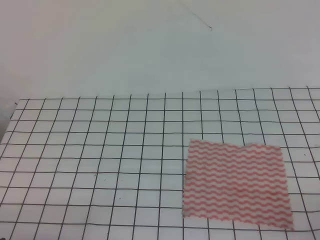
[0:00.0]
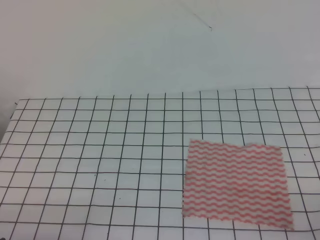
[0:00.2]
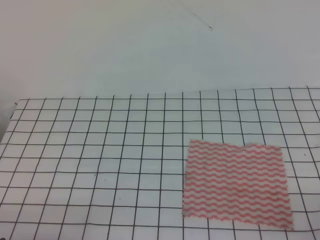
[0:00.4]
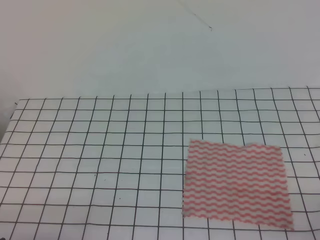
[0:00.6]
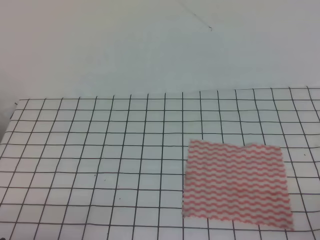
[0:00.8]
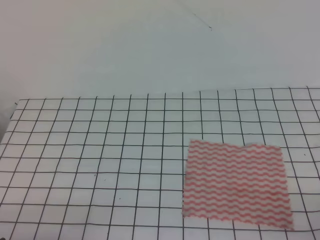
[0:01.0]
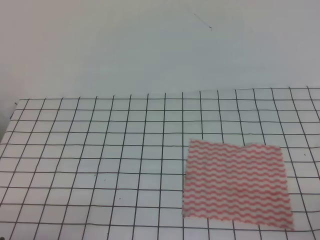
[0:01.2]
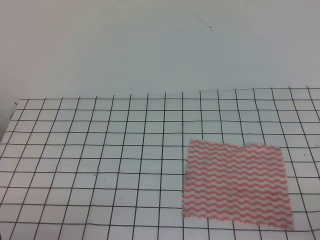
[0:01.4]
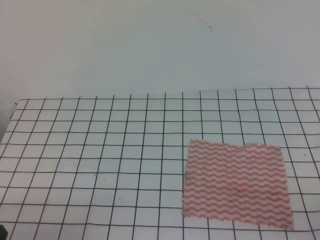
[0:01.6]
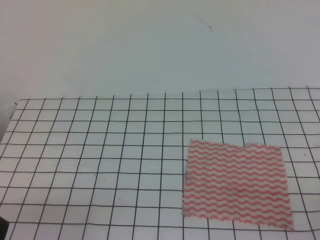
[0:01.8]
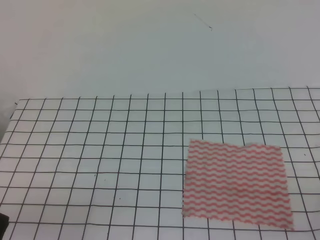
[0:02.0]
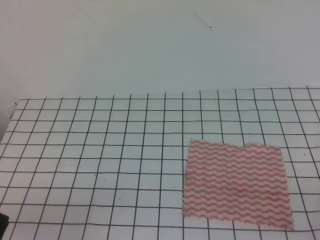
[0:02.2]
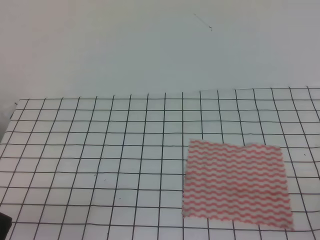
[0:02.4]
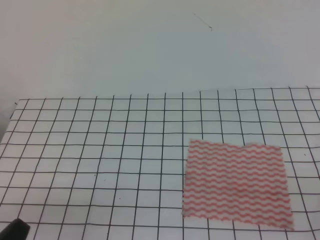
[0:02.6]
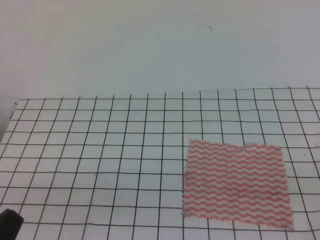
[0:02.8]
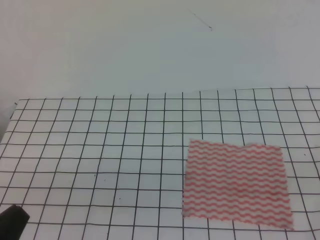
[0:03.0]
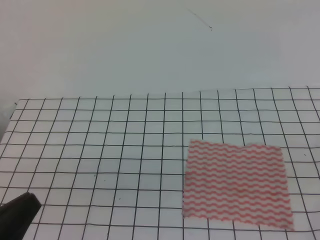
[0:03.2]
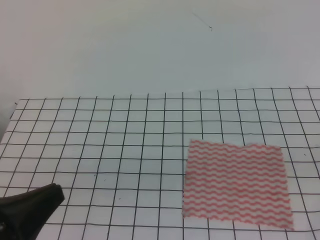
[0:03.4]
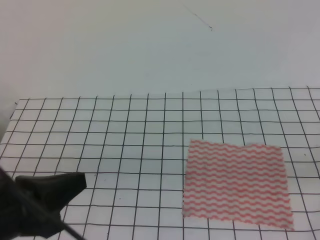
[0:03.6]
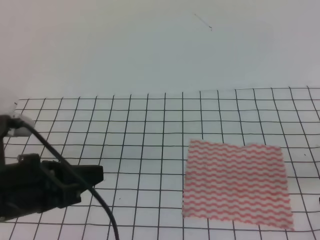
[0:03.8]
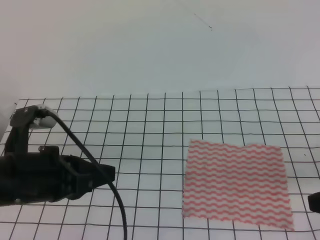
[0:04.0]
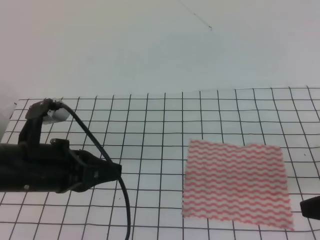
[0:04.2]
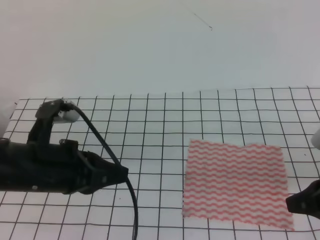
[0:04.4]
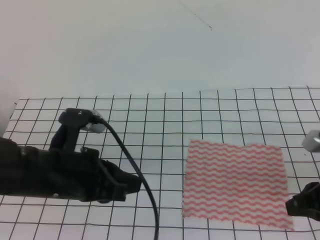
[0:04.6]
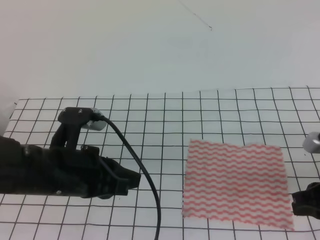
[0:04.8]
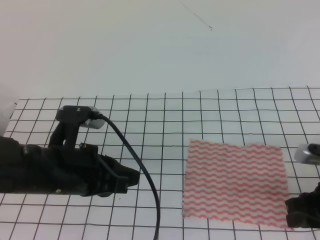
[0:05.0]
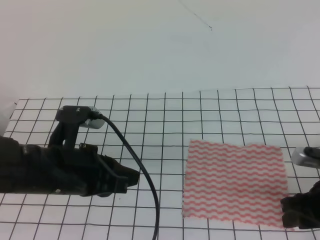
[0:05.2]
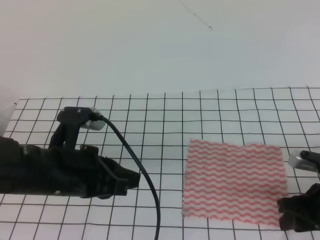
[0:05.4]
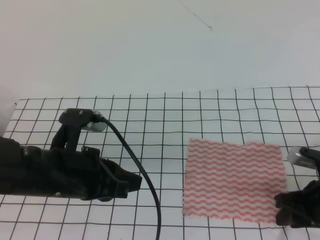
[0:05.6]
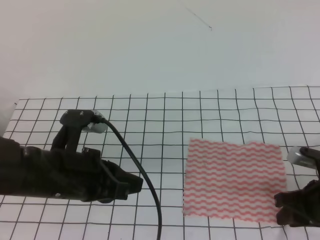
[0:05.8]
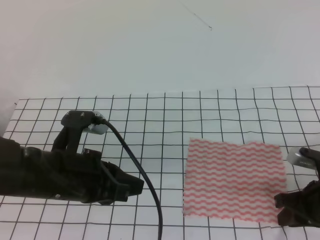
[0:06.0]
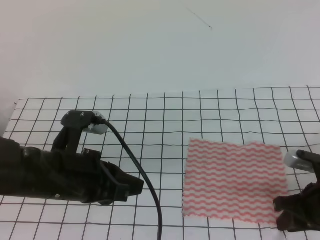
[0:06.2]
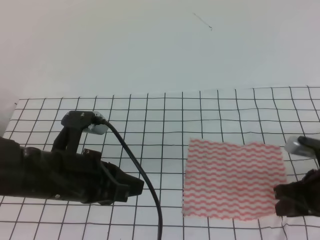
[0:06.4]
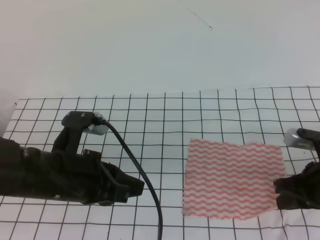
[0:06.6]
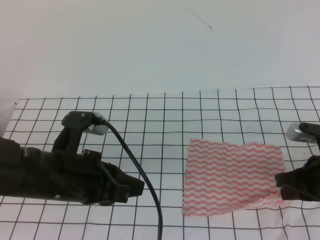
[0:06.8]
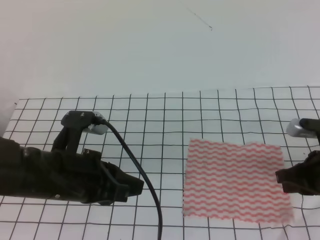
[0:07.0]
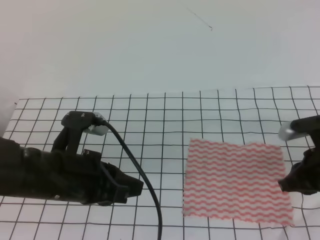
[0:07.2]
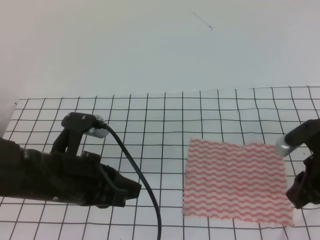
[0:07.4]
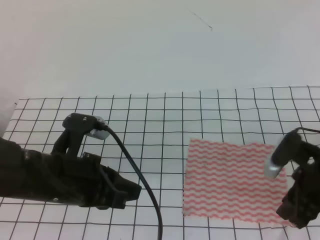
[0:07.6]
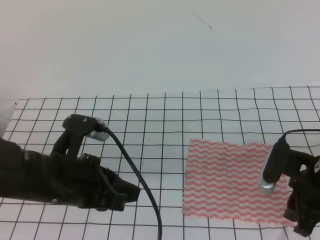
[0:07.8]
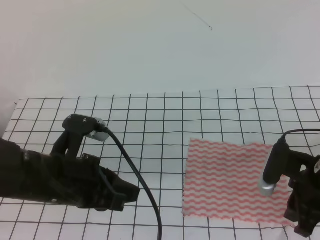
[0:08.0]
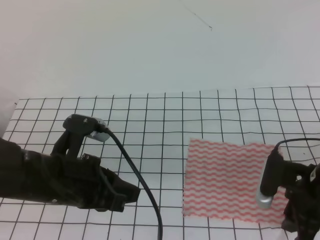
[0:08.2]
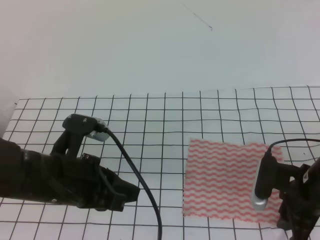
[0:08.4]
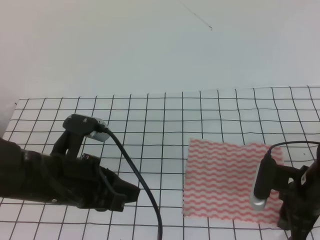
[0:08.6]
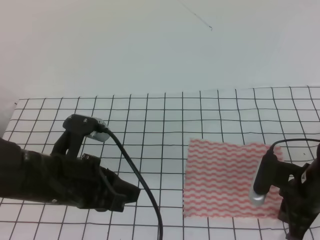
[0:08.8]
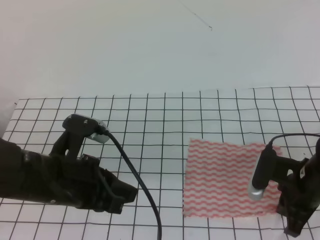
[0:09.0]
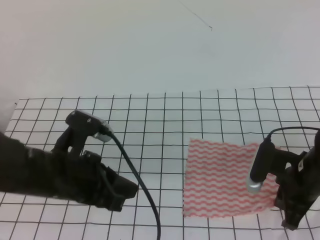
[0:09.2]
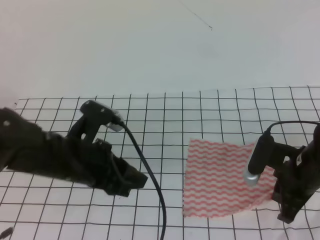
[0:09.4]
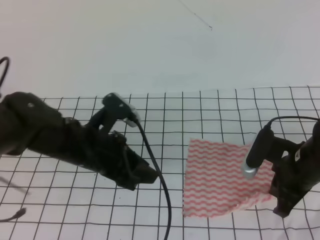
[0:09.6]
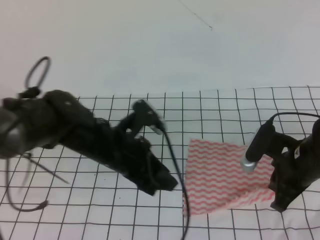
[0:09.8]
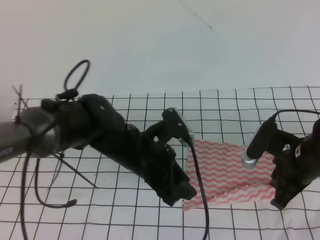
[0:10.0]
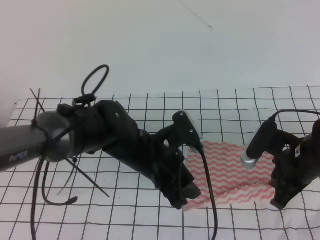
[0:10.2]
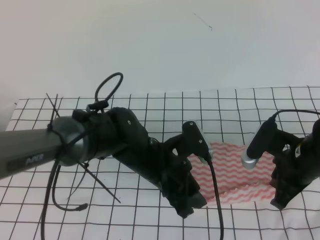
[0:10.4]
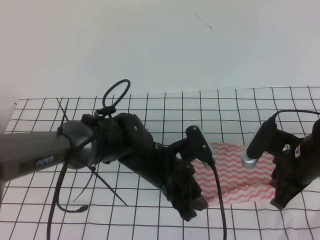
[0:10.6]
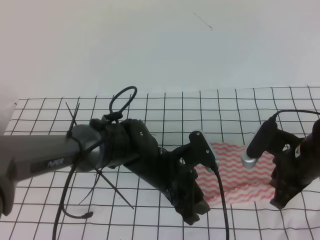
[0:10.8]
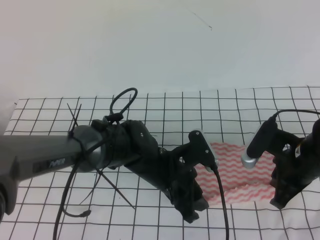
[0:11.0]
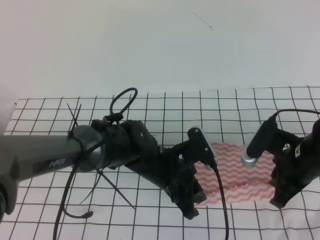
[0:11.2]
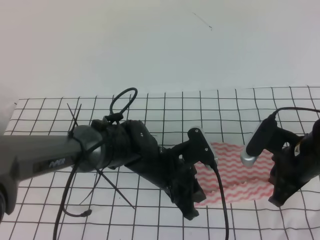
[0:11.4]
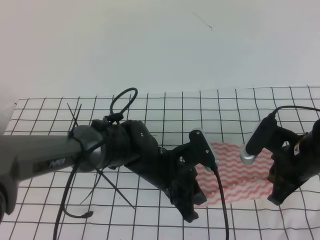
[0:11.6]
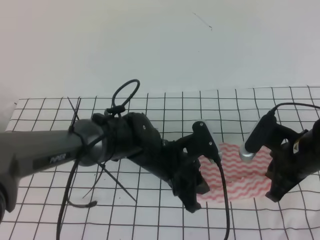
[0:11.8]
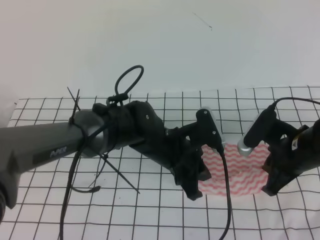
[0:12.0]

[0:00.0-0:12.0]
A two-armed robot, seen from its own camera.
0:01.6 to 0:03.0: The left gripper moves upward, approximately 5 cm.
0:03.0 to 0:04.4: The grippers both shift forward by about 15 cm.
0:04.4 to 0:06.0: The right gripper is displaced downward by approximately 10 cm.
0:06.0 to 0:07.6: The right gripper changes place by approximately 5 cm, and closes, then opens again.
0:07.6 to 0:09.0: The right gripper closes up.
0:09.0 to 0:10.4: The left gripper moves to the right, forward and downward, approximately 15 cm, and opens.
0:10.4 to 0:12.0: The left gripper closes up.

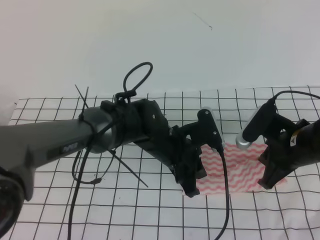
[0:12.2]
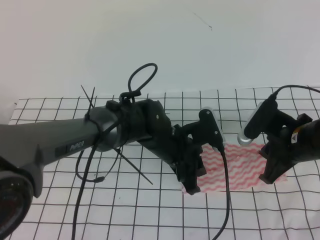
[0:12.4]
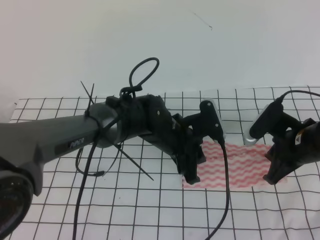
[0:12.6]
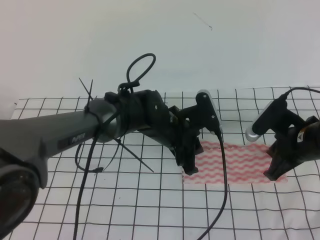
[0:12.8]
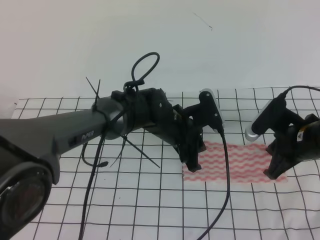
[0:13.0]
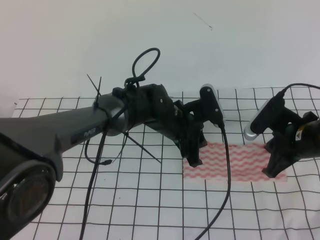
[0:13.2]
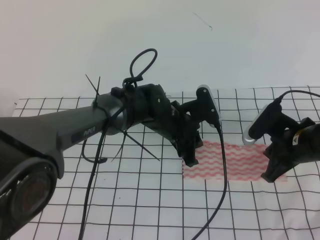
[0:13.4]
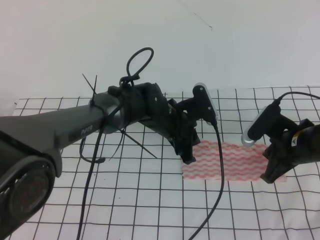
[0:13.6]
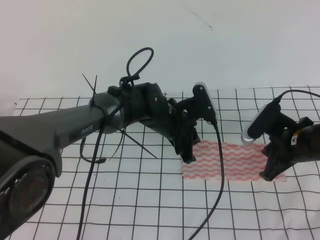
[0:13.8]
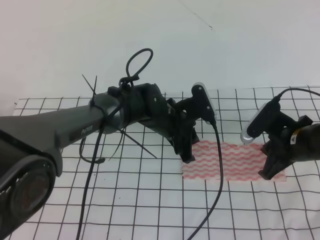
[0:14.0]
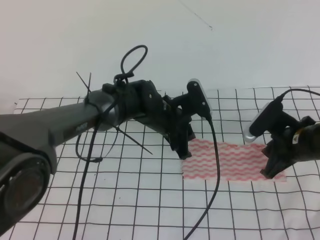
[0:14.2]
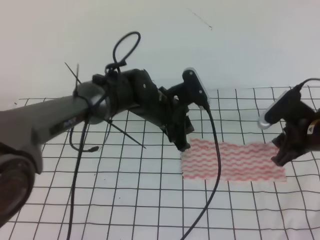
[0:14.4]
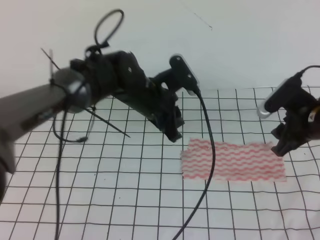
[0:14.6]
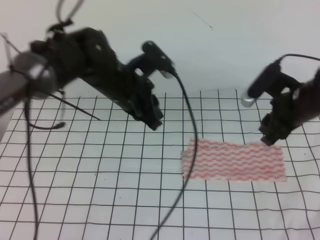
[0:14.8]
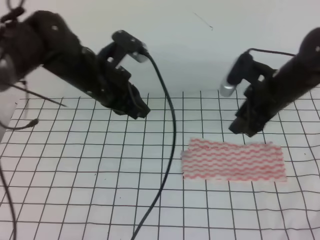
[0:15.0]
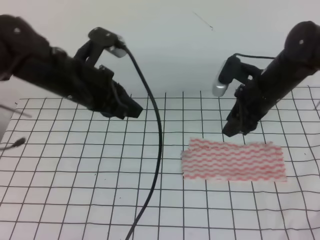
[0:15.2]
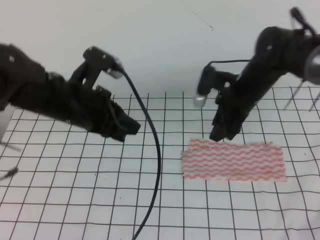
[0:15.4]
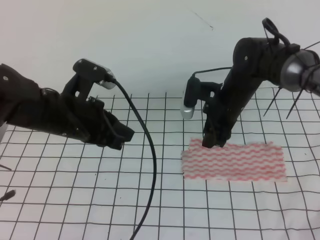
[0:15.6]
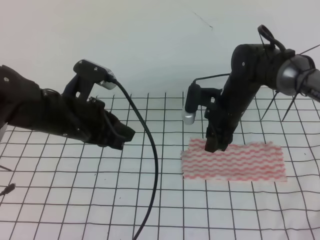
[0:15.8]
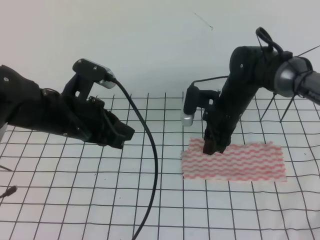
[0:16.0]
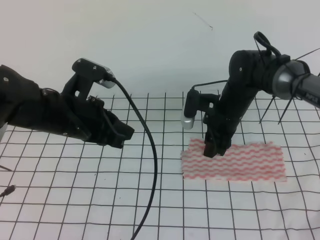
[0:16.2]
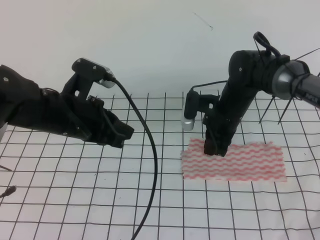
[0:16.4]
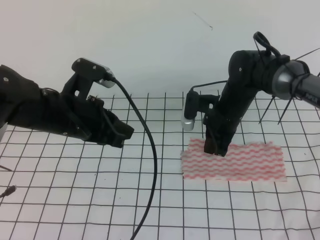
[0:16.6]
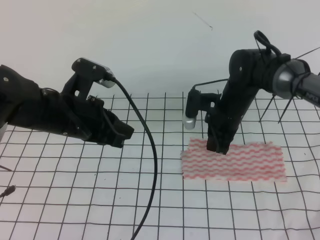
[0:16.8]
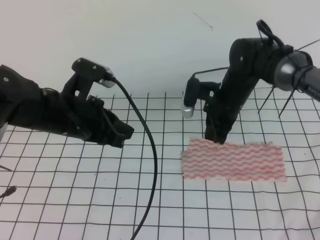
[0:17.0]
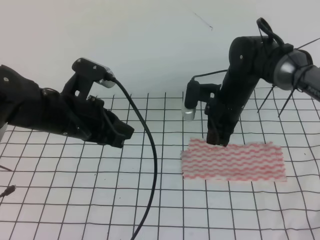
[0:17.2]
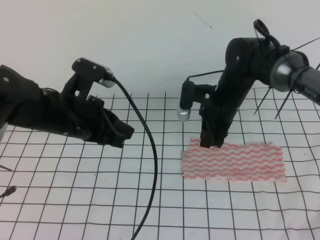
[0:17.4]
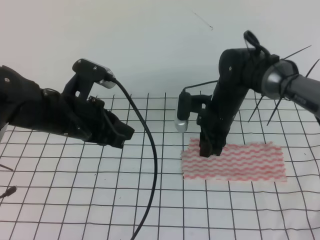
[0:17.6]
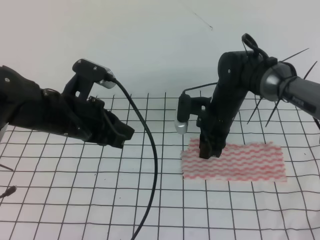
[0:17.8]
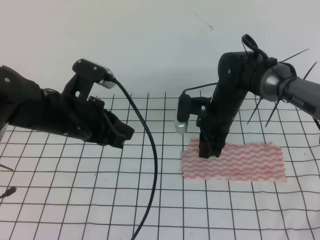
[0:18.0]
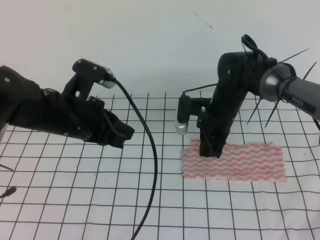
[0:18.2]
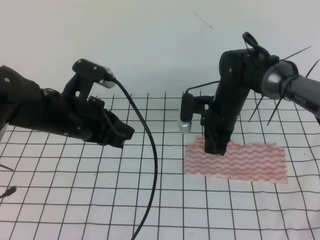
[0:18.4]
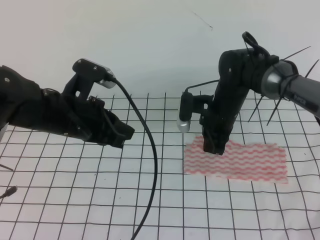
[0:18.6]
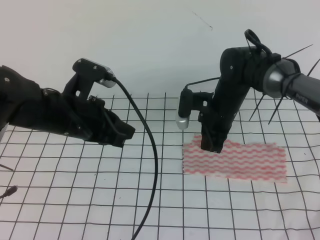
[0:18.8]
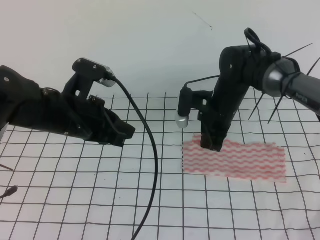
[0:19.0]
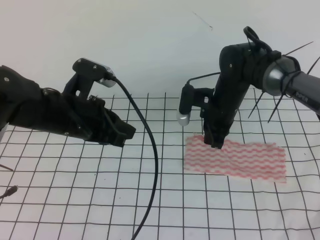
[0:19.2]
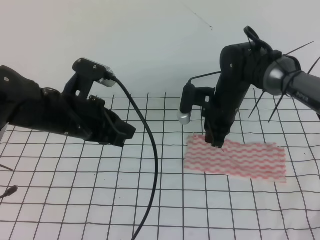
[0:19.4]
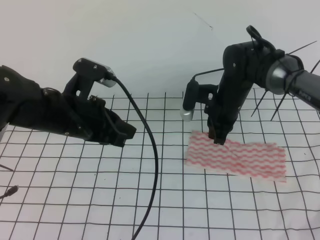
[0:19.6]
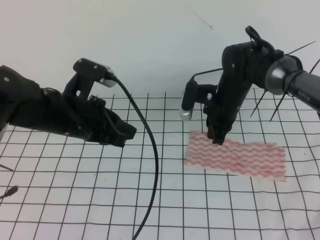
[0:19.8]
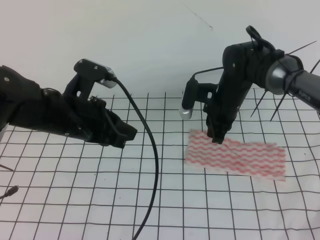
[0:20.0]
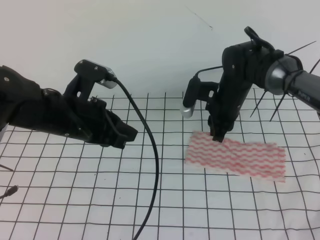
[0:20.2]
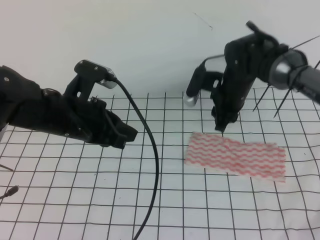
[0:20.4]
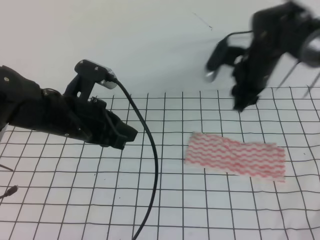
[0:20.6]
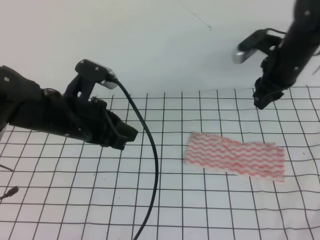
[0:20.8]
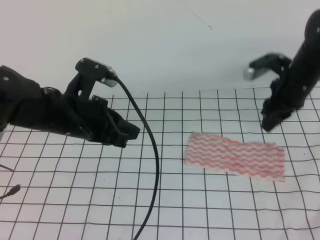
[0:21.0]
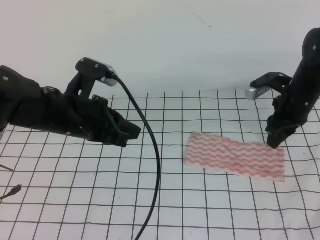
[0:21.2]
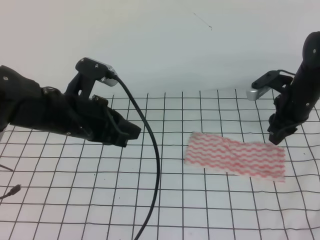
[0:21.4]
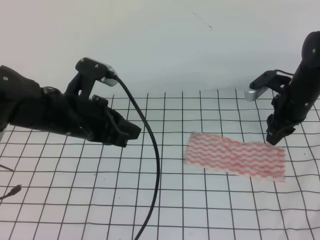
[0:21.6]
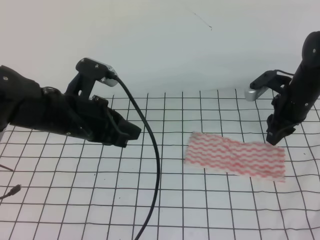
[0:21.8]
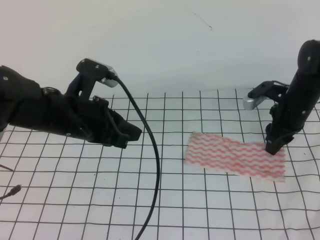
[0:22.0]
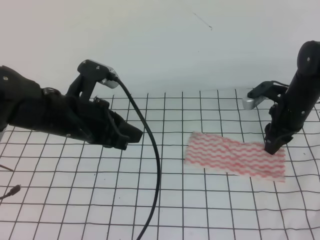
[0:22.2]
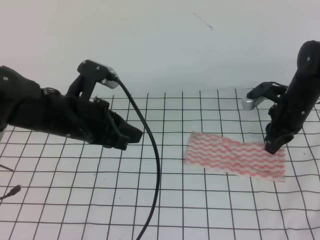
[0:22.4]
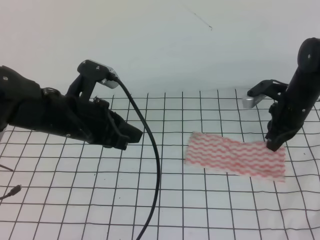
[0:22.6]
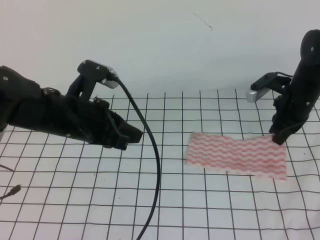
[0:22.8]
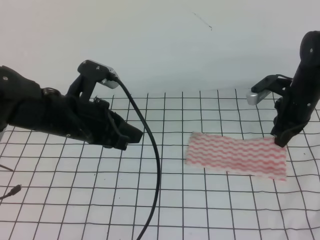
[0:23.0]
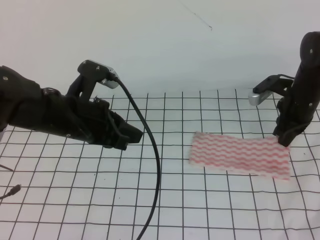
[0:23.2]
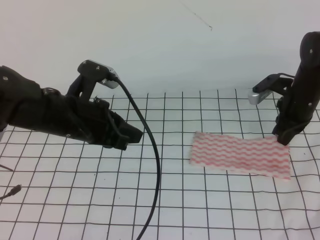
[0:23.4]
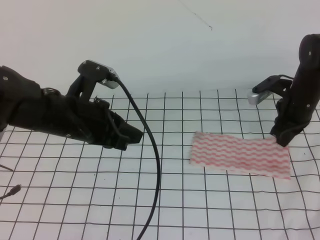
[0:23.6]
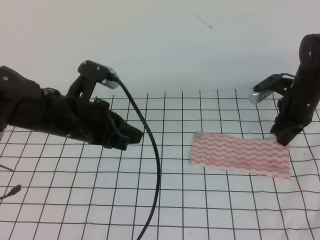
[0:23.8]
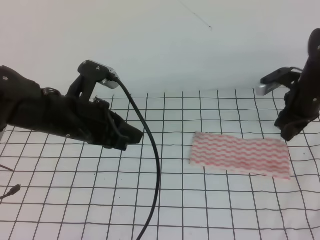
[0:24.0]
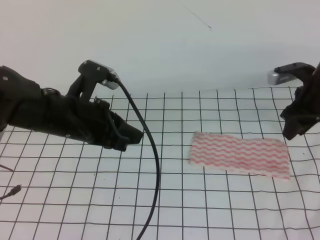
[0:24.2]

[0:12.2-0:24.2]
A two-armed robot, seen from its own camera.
0:12.2 to 0:13.8: The left gripper shifts about 5 cm forward.
0:13.8 to 0:15.2: The right gripper heads forward, upward and to the left, covering roughly 10 cm, and opens up. The left gripper goes about 20 cm to the left and upward.
0:15.2 to 0:16.6: The right gripper goes roughly 10 cm downward and to the left, and closes its fingers. Meanwhile the left gripper shifts by roughly 5 cm.
0:16.6 to 0:18.2: The right gripper opens, then closes again.
0:18.2 to 0:19.8: The grippers make only small movements.
0:19.8 to 0:21.2: The right gripper travels to the right by about 15 cm, and opens.
0:21.2 to 0:22.6: The right gripper closes.
0:22.6 to 0:24.2: The right gripper opens.
